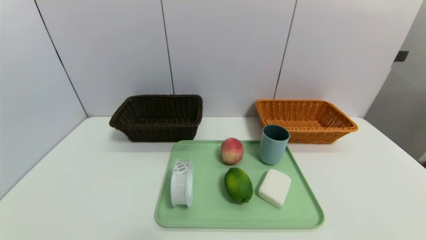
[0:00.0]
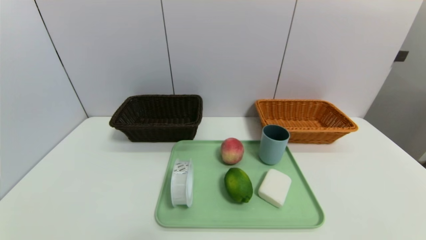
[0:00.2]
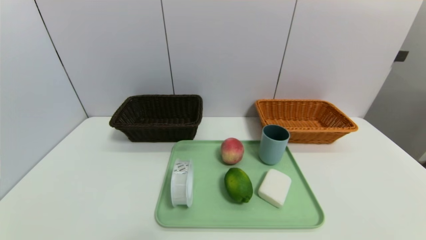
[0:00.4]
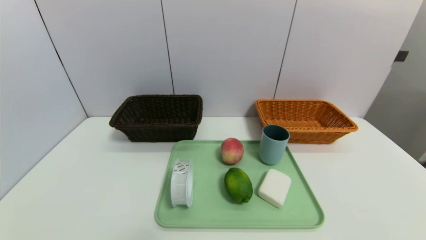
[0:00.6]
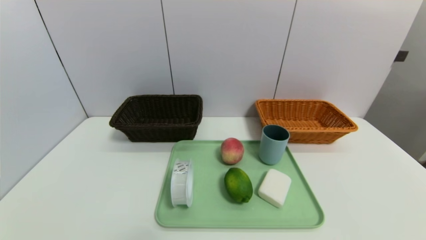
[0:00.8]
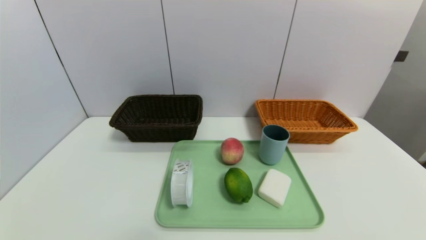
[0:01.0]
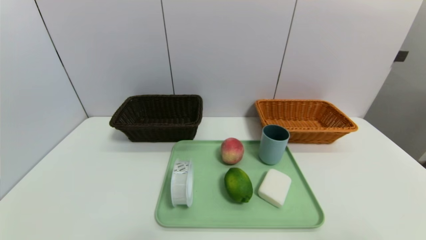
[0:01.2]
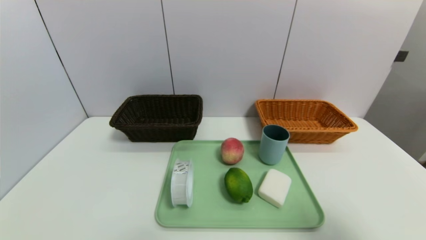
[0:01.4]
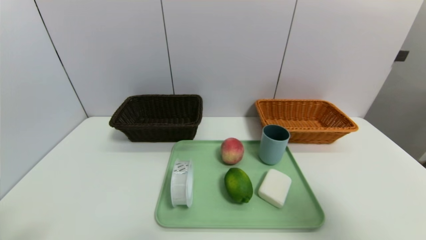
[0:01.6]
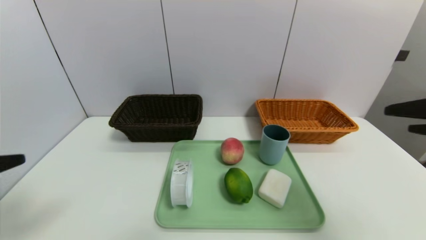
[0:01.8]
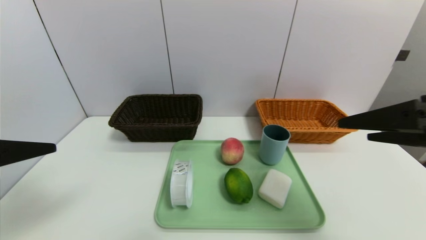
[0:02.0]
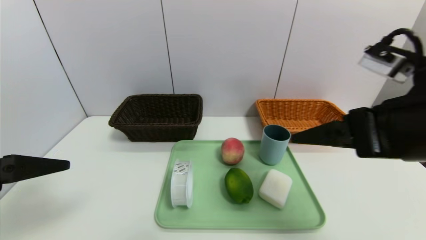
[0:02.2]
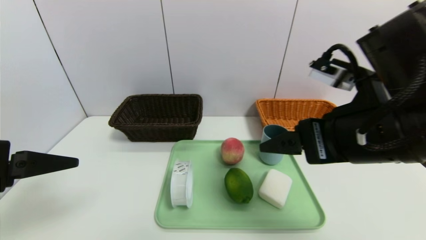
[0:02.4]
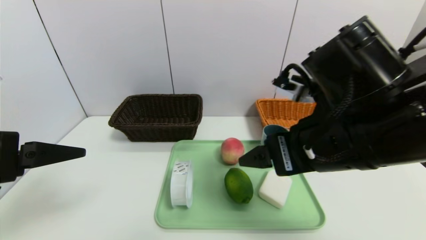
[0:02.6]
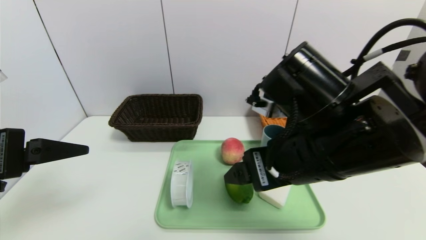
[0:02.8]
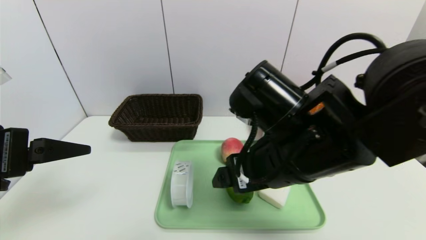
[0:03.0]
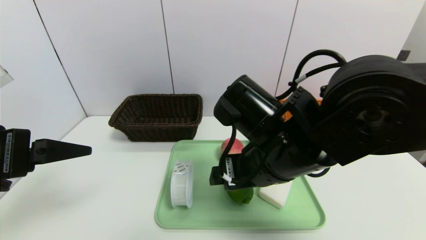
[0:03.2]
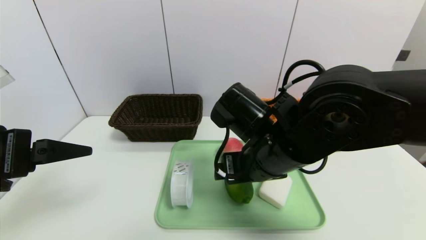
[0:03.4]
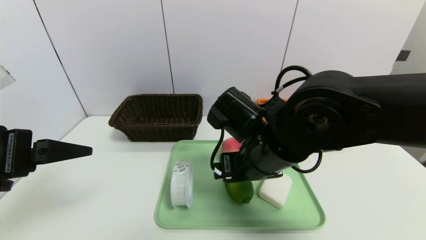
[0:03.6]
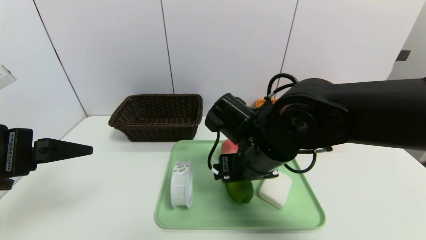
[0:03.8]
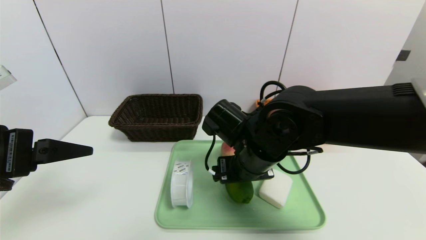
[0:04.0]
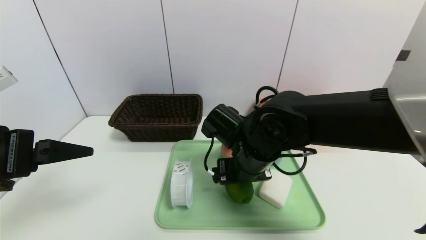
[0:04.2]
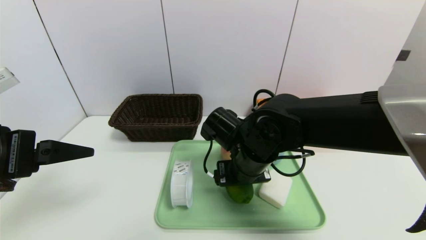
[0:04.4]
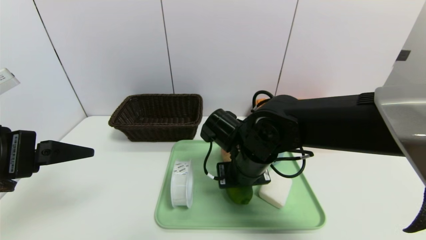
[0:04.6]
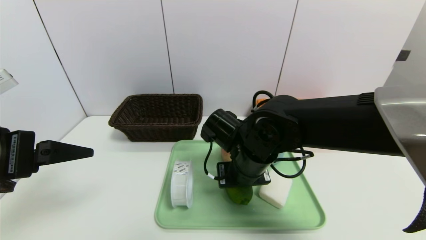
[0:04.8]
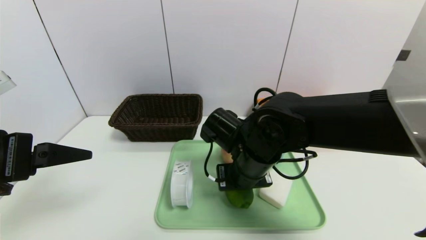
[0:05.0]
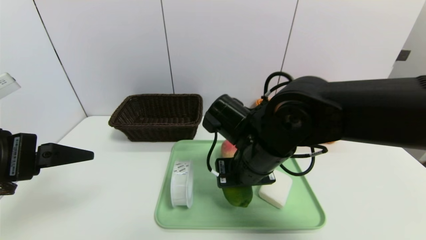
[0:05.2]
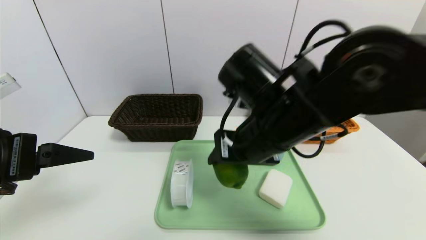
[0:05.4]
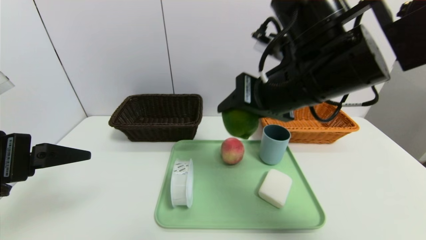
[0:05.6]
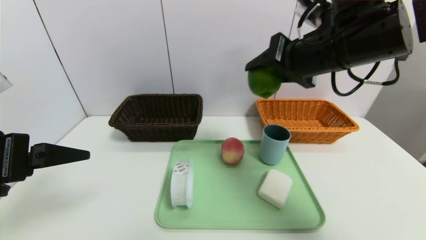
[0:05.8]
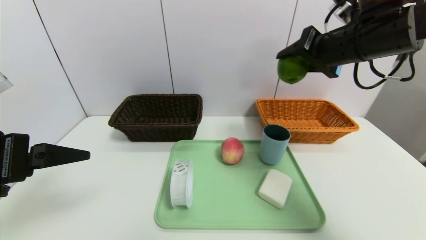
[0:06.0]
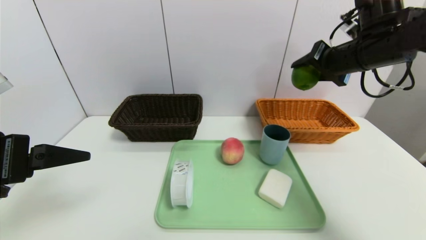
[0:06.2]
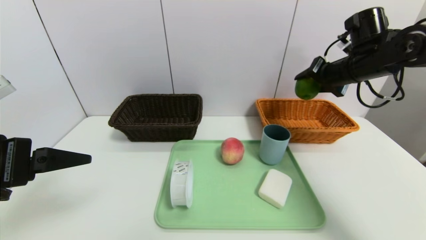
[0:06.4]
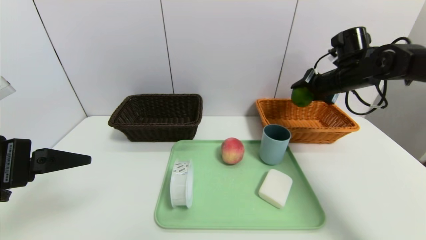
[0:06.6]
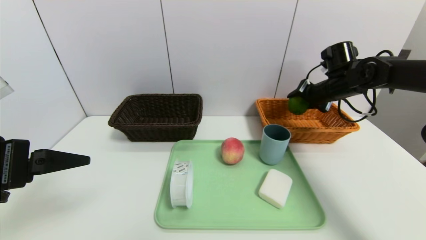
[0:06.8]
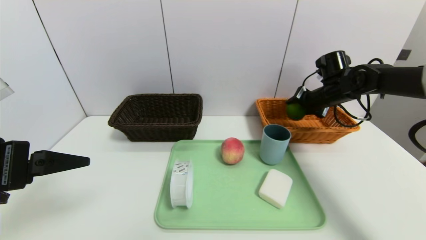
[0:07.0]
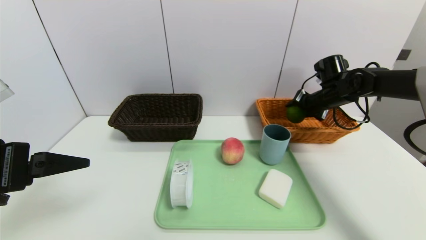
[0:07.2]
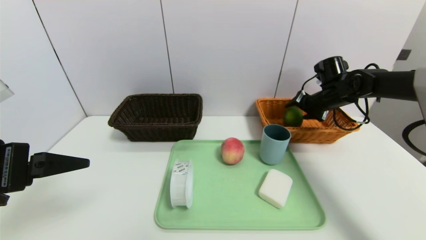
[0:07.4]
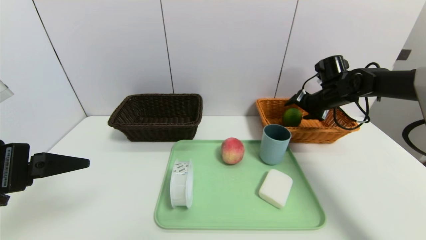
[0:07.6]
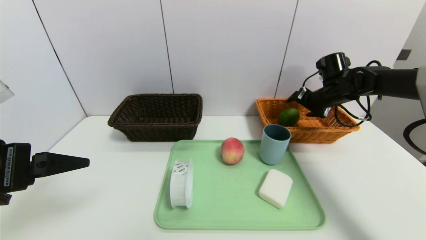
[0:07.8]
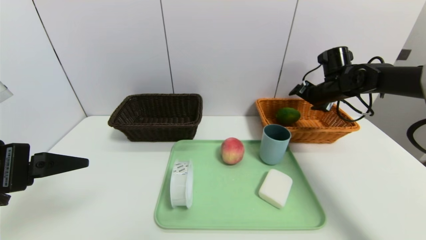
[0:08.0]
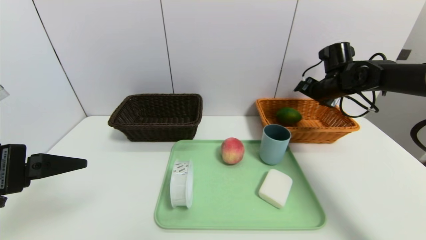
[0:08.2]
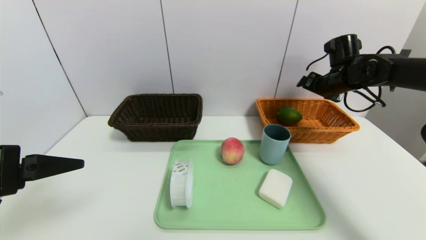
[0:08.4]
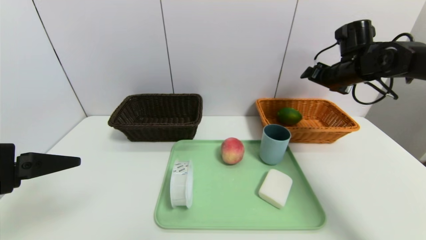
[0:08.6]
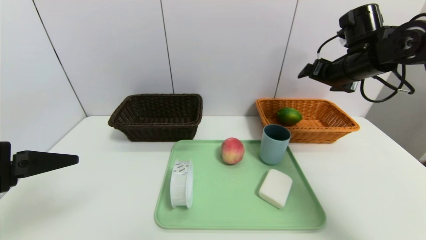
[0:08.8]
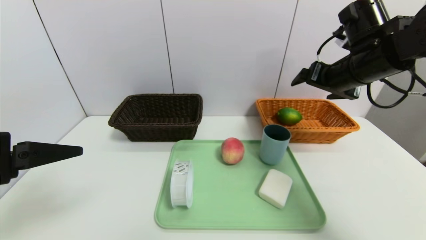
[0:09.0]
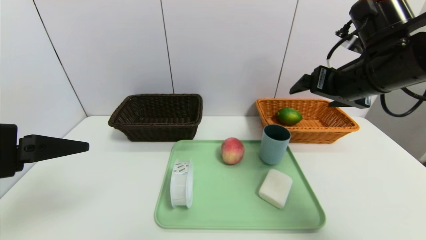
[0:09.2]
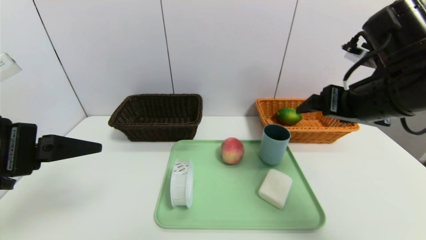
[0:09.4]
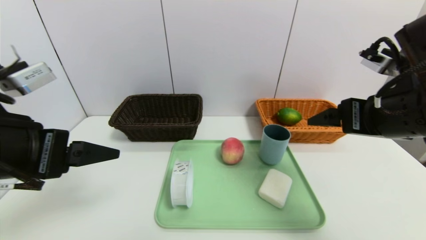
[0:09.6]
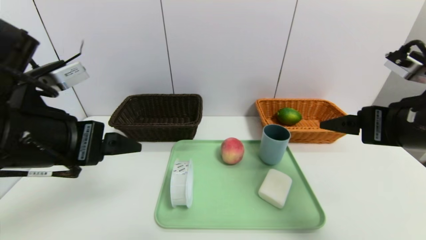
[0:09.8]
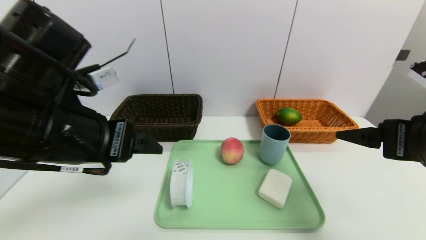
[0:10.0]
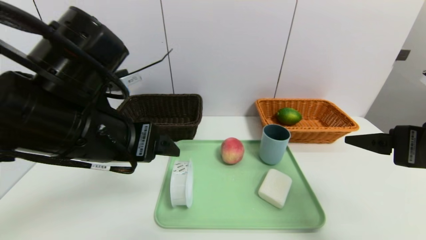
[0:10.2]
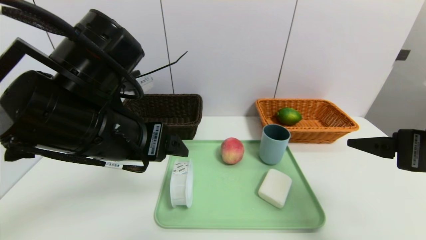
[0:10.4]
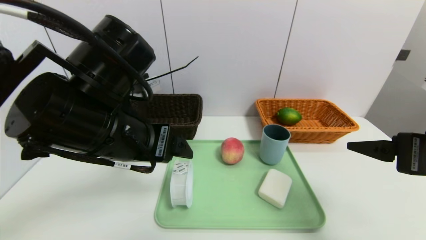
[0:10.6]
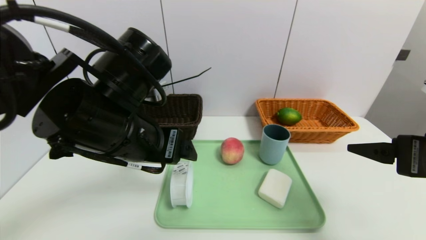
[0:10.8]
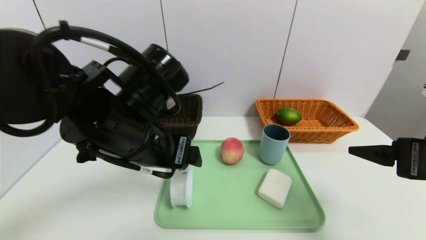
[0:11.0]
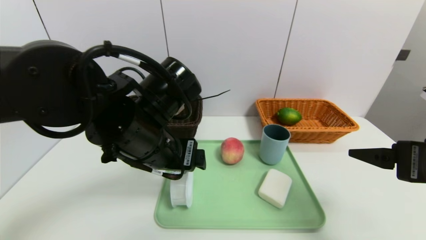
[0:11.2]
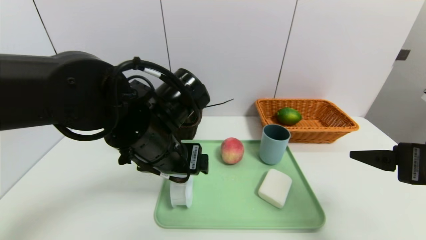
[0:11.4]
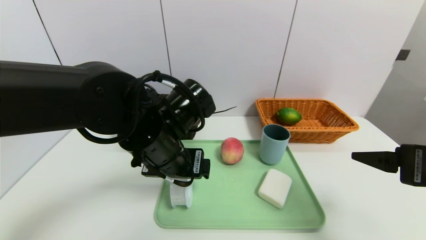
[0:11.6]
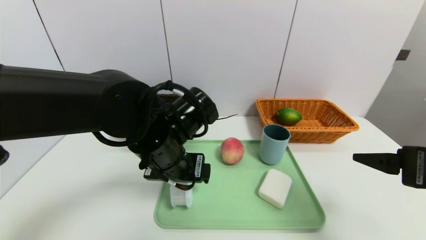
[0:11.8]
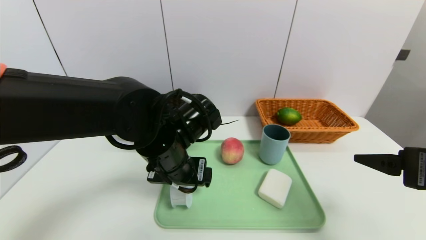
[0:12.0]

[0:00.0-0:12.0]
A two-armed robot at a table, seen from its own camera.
Task of the whole recording: place the food in the right basket with the right gripper, and place the non food items in the left basket with the left gripper.
Step, 0:00.0 to 0:07.8: Grasp the lime and put it in the right basket.
0:00.0 to 0:01.6: The right gripper travels upward by roughly 25 cm.
0:01.6 to 0:03.0: The left gripper shifts roughly 10 cm forward; the right gripper travels to the left and forward by approximately 25 cm.
0:03.0 to 0:04.4: The right gripper is displaced downward and forward by approximately 10 cm.
0:04.4 to 0:06.0: The right gripper shifts some 25 cm upward and to the right, and closes up.
0:06.0 to 0:07.6: The right gripper shifts about 25 cm downward, forward and to the right, and opens up.
0:07.6 to 0:09.0: The right gripper goes approximately 20 cm backward, upward and to the left, and opens its fingers.
0:09.0 to 0:10.4: The left gripper goes about 15 cm to the right and forward; the right gripper heads backward, covering some 20 cm.
0:10.4 to 0:12.0: The left gripper is displaced downward, to the right and forward by about 15 cm.

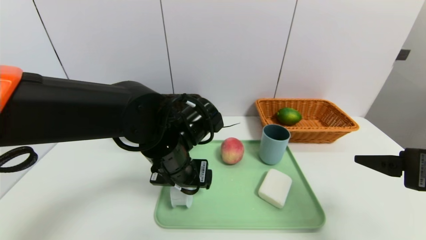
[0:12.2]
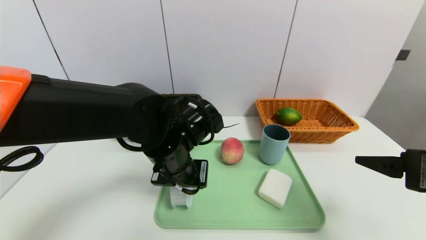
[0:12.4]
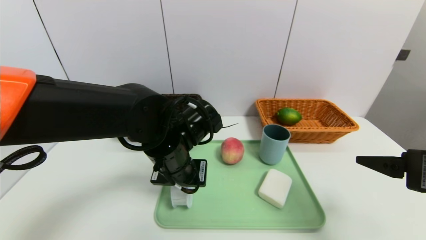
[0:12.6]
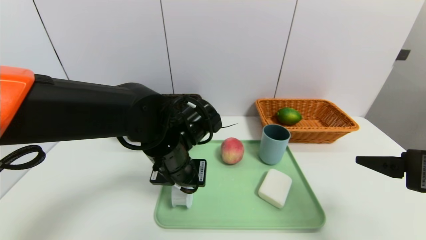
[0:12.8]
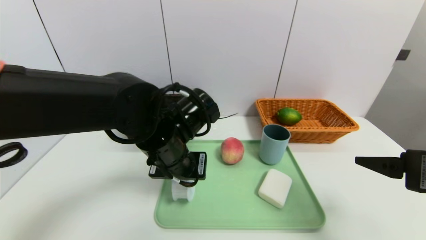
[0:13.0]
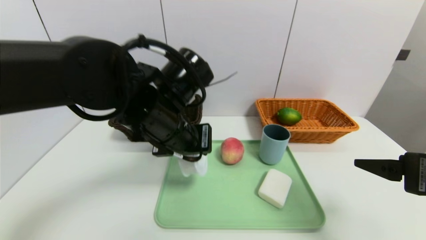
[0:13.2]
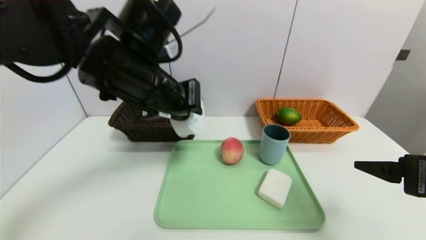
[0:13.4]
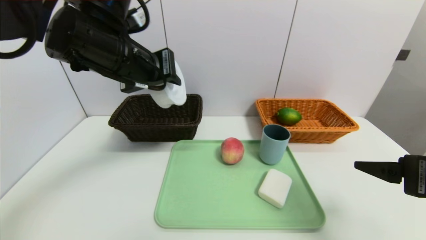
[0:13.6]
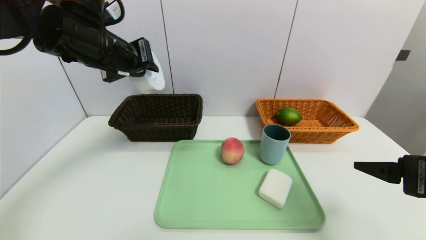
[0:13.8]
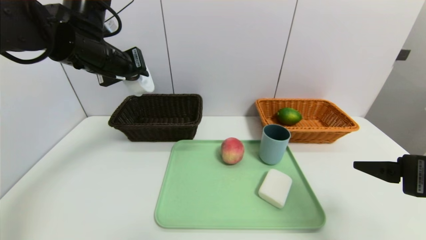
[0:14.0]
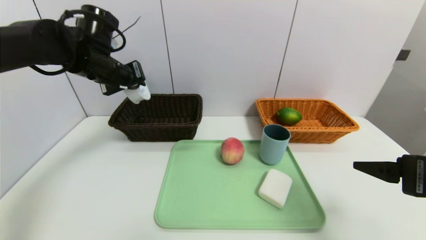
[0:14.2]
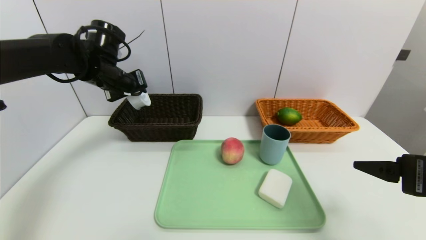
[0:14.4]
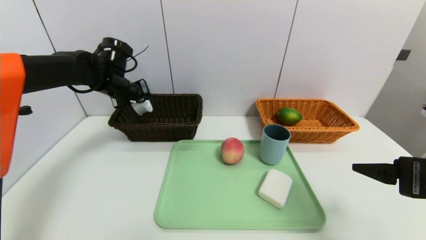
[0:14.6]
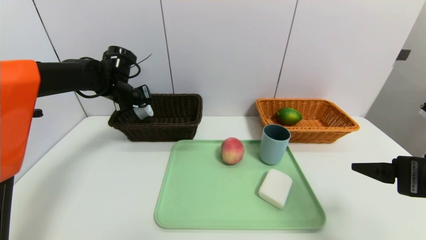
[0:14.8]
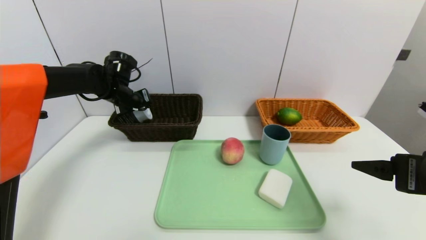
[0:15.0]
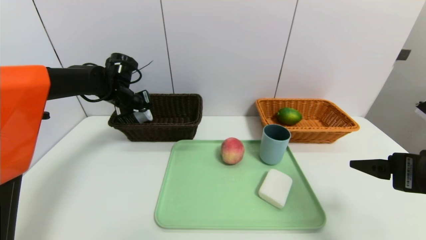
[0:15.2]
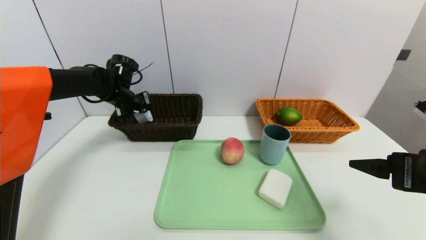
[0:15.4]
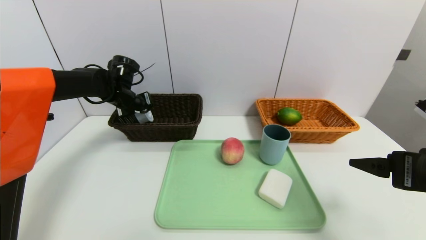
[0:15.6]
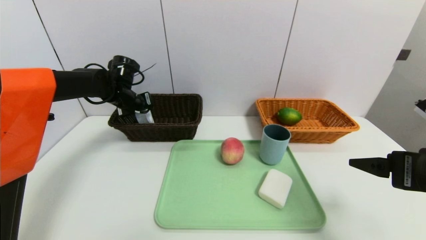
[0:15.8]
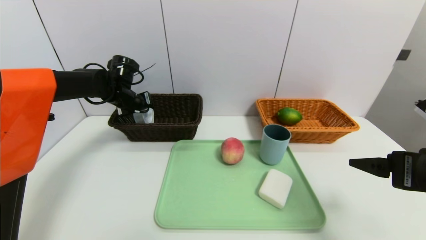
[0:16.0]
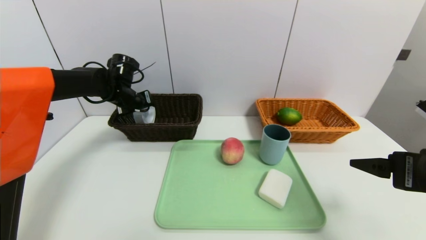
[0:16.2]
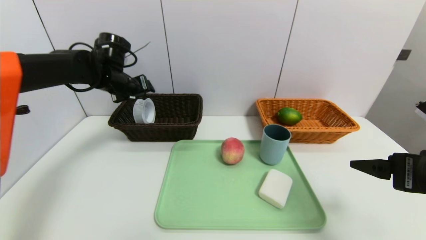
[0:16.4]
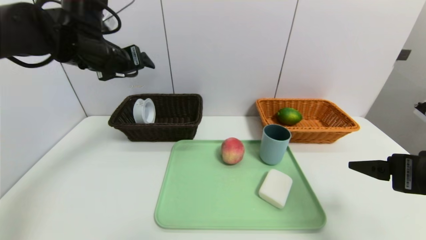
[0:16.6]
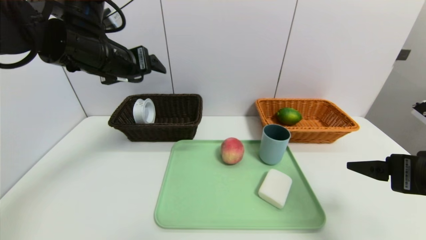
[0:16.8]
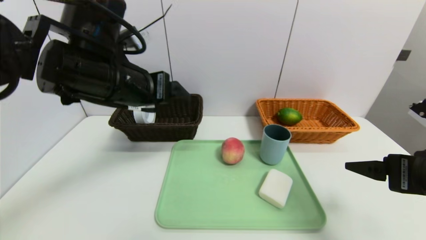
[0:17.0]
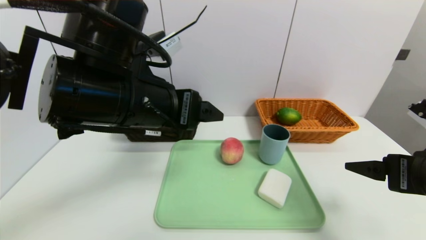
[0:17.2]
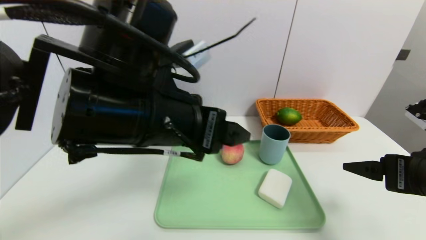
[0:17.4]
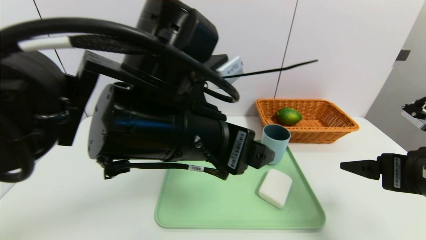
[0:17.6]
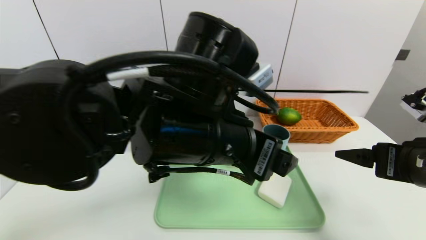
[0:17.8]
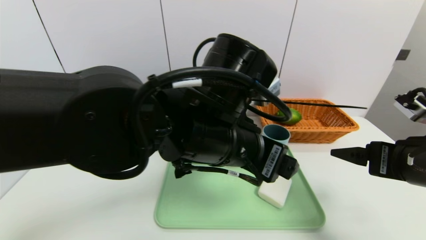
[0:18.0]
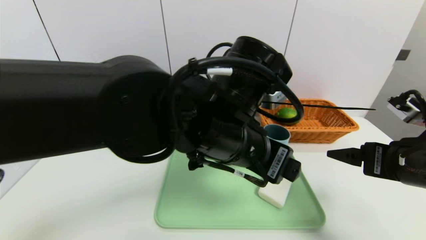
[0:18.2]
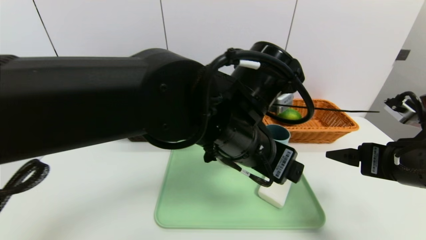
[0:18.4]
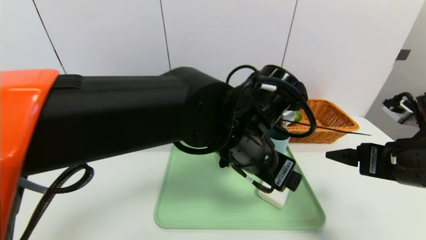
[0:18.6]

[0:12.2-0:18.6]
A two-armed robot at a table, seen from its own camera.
Task of the whole recording: place the food in the right basket with the right gripper, and place the non food items in the left basket with the left gripper.
Step, 0:12.2 to 0:16.4: Grasp the tape and put it in the left basket.
0:12.2 to 0:13.8: The left gripper goes about 20 cm upward and to the left, and closes its fingers.
0:13.8 to 0:15.4: The left gripper shifts about 20 cm forward, downward and to the left.
0:15.4 to 0:17.0: The left gripper moves backward, upward and to the right, some 25 cm, and opens.
0:17.0 to 0:18.6: The left gripper shifts approximately 20 cm to the right and downward.
